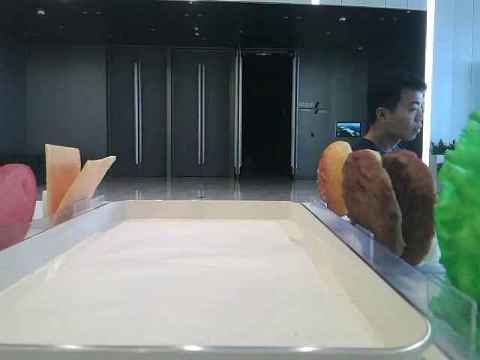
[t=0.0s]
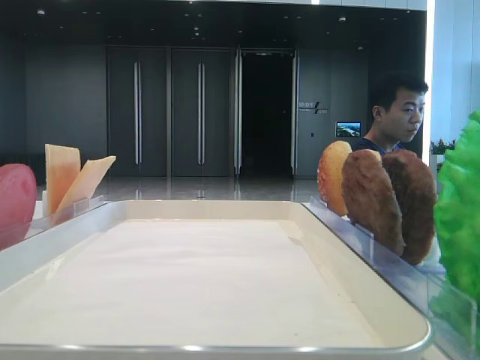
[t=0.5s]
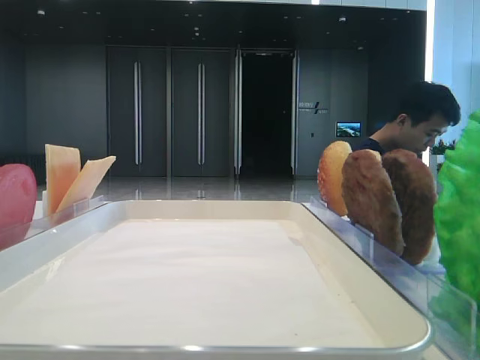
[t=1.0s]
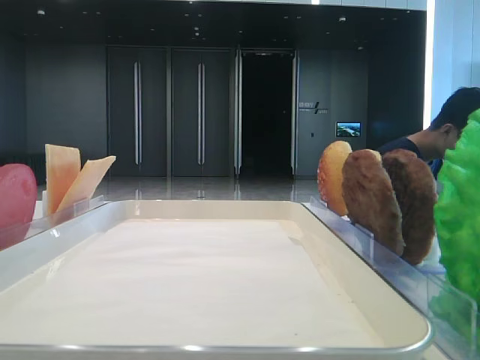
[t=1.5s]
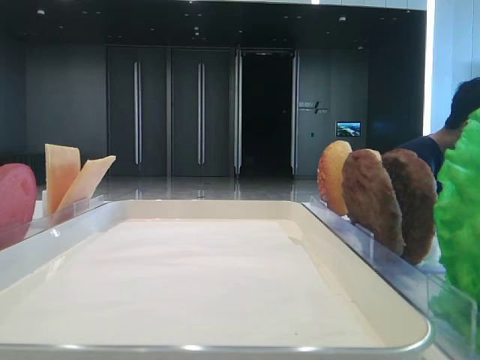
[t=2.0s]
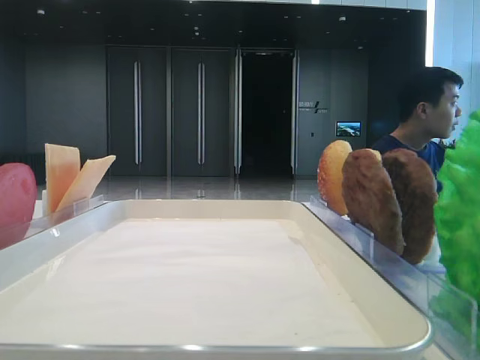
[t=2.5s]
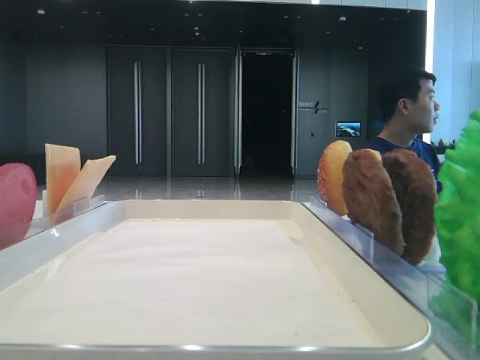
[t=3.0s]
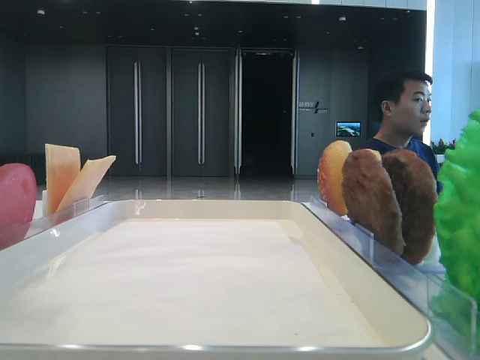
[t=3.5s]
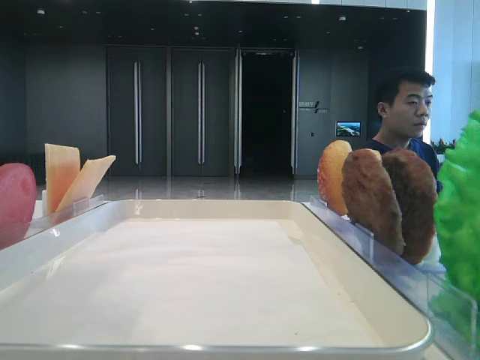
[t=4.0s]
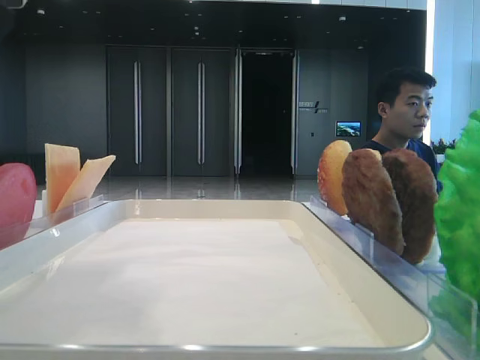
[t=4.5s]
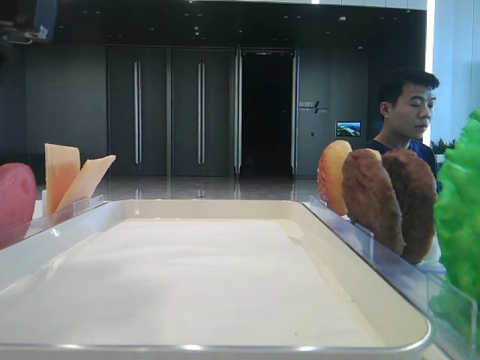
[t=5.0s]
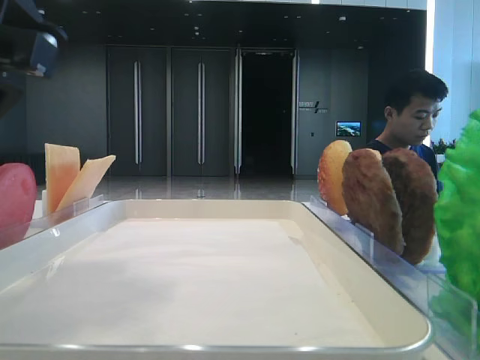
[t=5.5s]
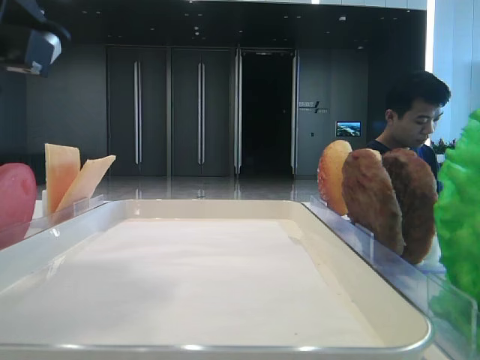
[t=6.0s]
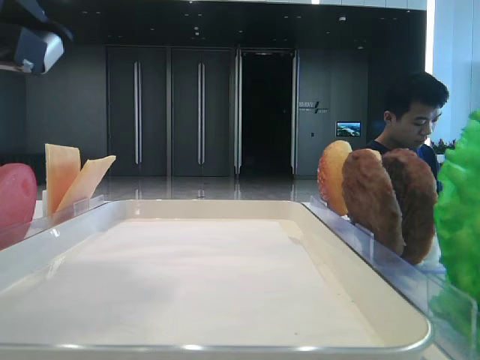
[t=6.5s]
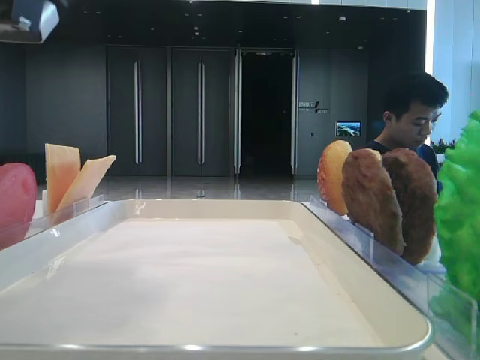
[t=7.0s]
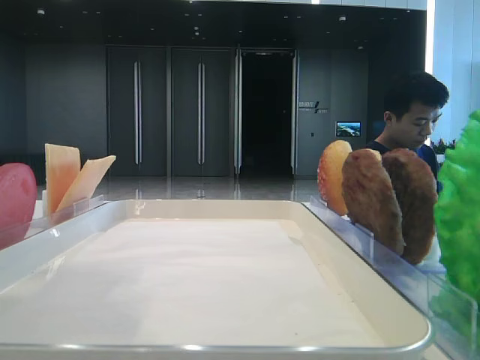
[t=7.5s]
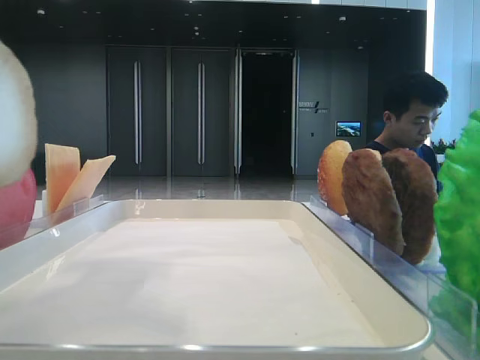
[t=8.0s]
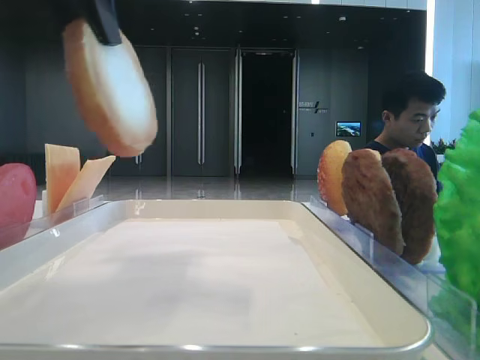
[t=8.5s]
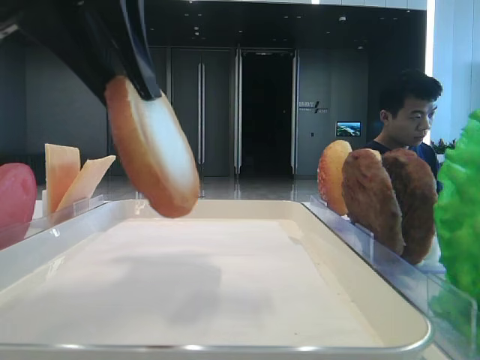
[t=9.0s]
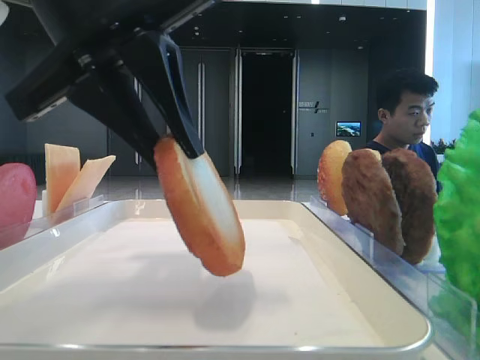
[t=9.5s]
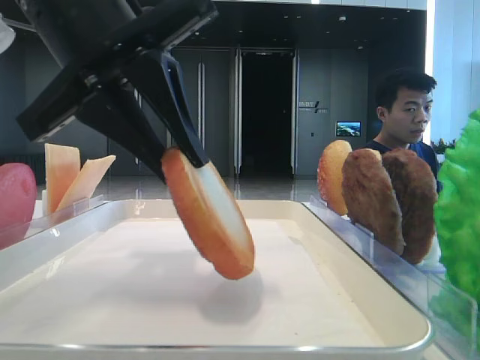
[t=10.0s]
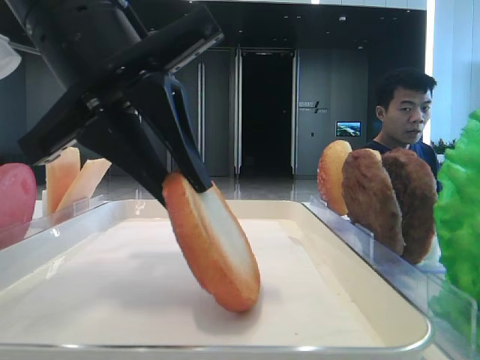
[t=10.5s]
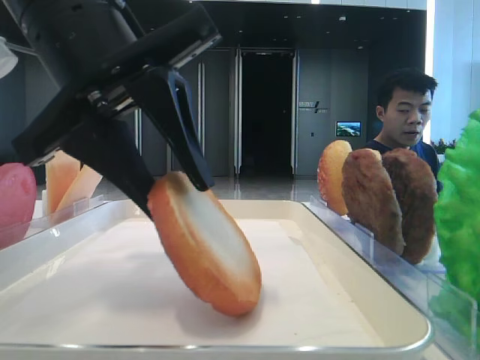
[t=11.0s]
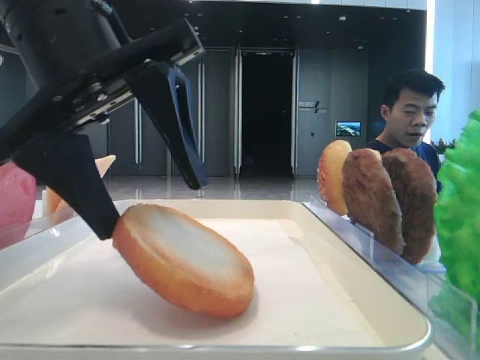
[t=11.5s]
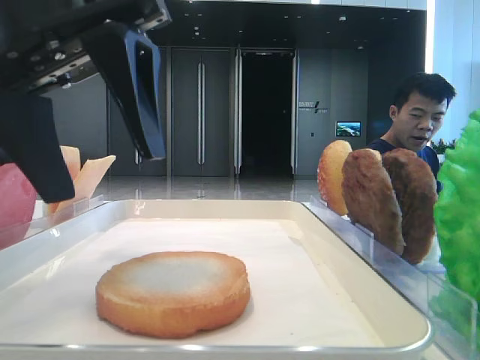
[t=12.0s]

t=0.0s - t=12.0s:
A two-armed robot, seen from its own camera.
Step, t=0.0s - t=6.5s: Pick up the bottom bread with the left hand.
Step, t=7.0s - t=11.5s: Place the bread on the tray with the left hand.
t=2.0s - t=4.0s: The left gripper travels to the right and downward by roughly 15 cm.
t=4.0s - t=6.0s: The left gripper travels downward by roughly 5 cm, and closes up.
t=6.0s - t=8.0s: The left gripper moves upward, about 5 cm.
t=8.0s - t=10.0s: The left gripper travels downward by roughly 10 cm.
t=10.0s - t=12.0s: The left gripper opens up.

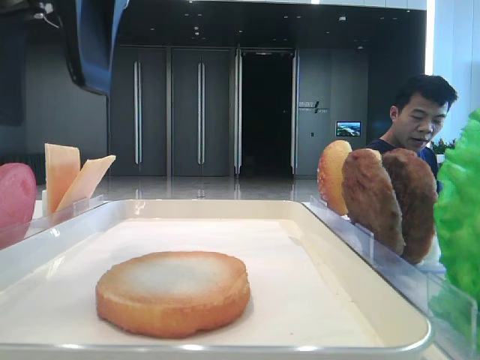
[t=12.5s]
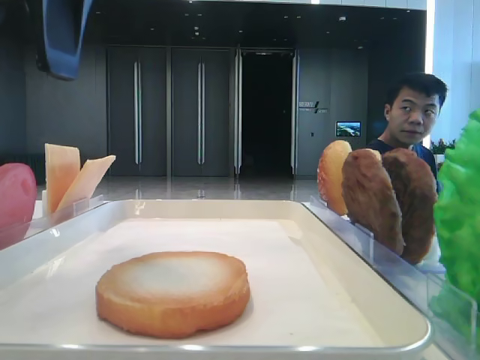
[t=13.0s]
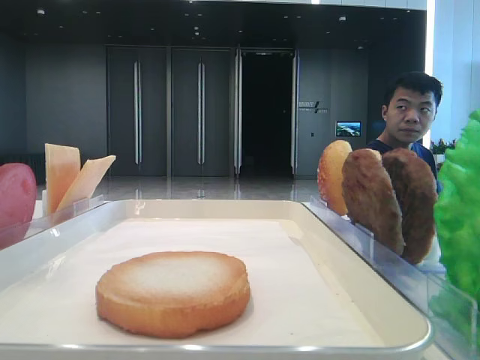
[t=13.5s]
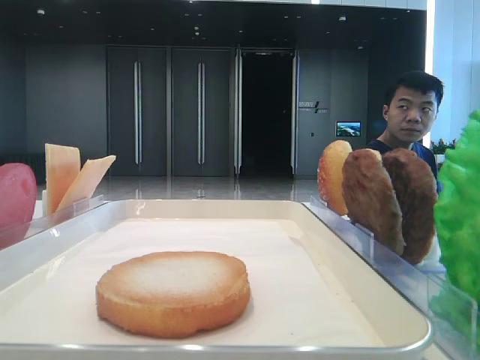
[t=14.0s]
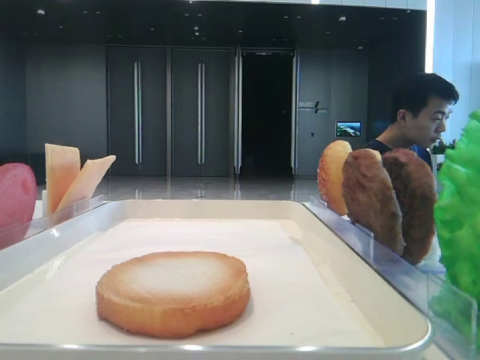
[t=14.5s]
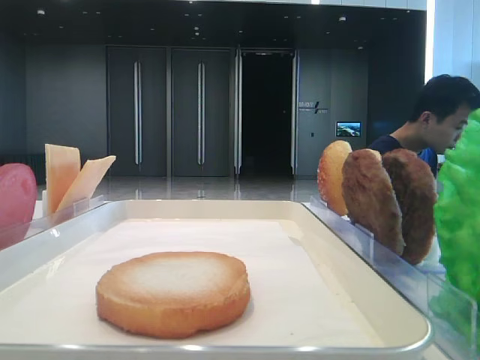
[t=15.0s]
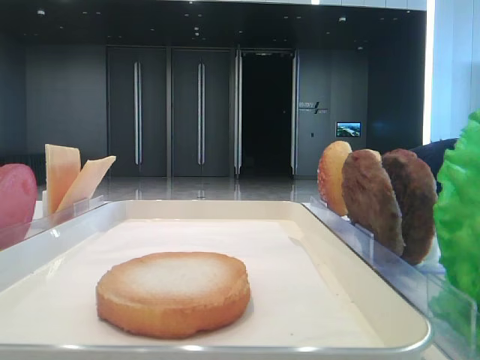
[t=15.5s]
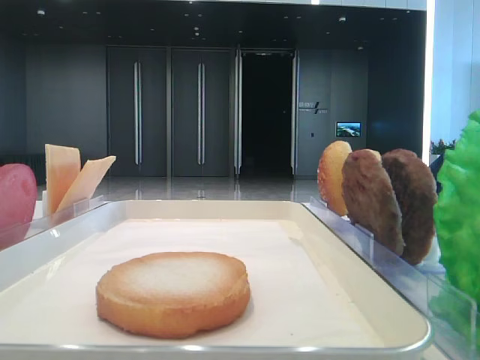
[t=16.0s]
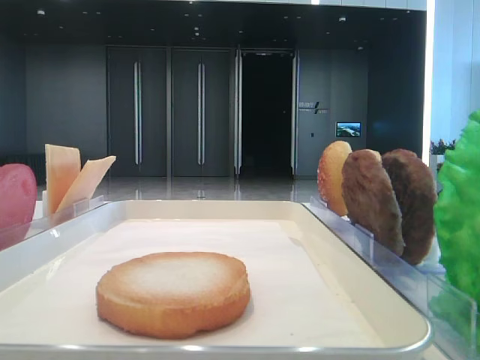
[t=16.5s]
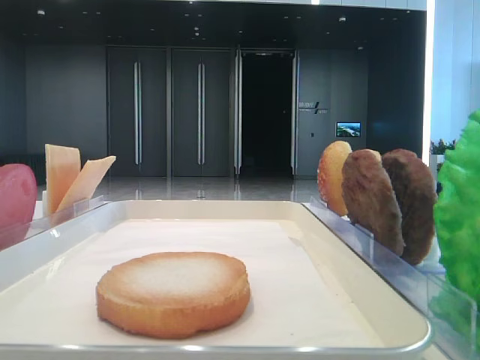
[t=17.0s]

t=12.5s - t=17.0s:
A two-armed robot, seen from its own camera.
t=12.5s - t=14.5s: The left gripper heads to the left and upward, covering roughly 20 cm.

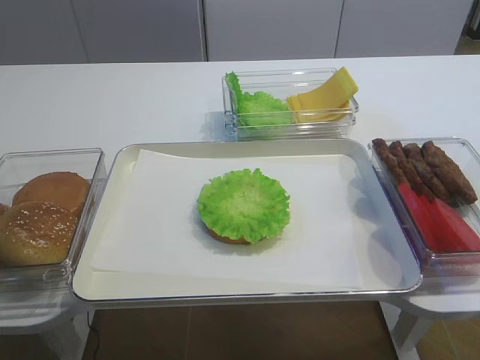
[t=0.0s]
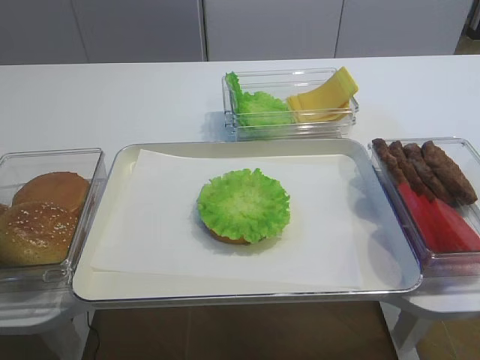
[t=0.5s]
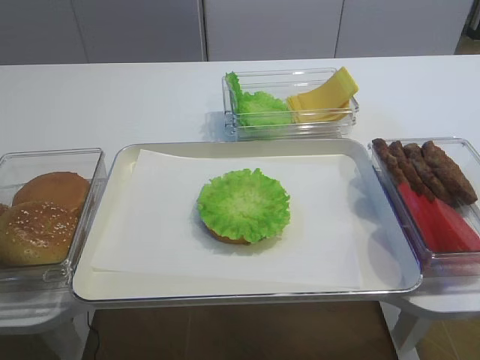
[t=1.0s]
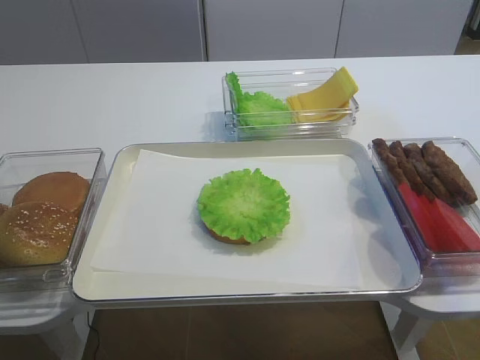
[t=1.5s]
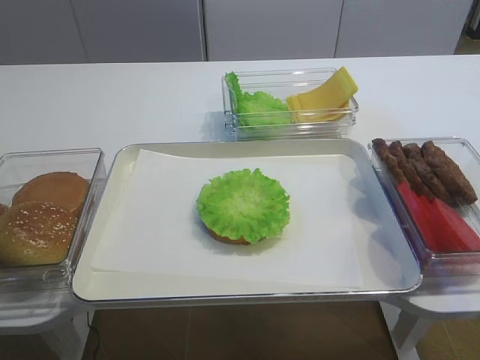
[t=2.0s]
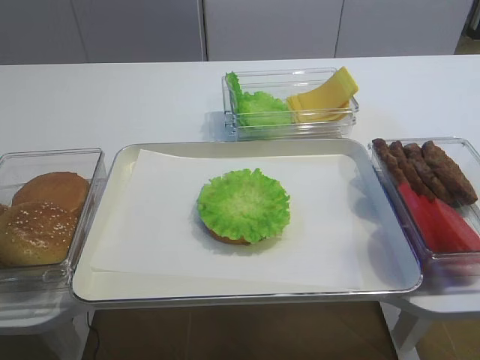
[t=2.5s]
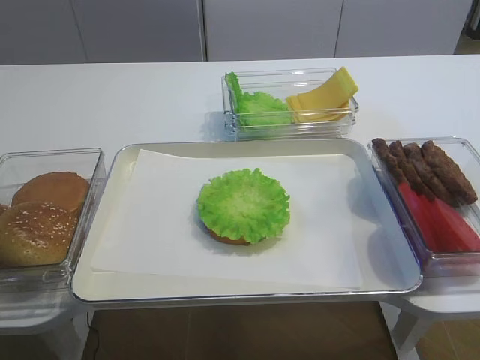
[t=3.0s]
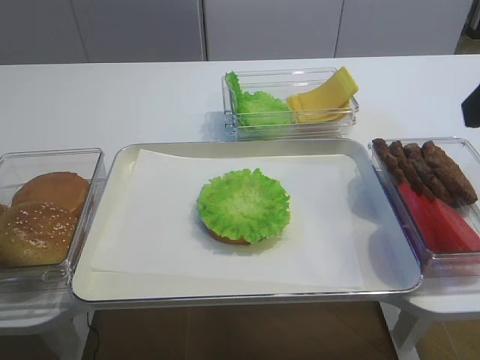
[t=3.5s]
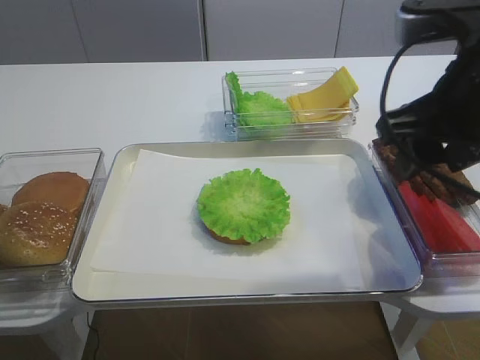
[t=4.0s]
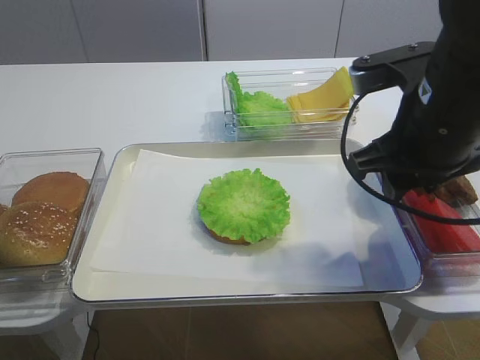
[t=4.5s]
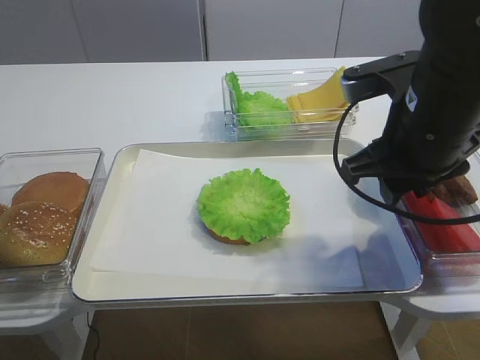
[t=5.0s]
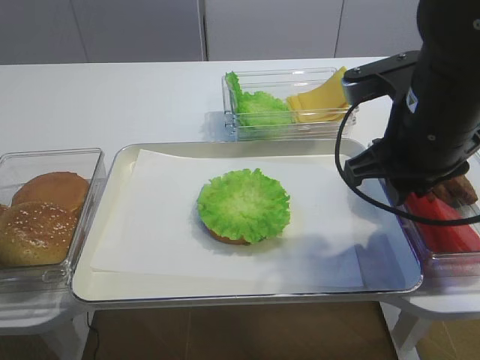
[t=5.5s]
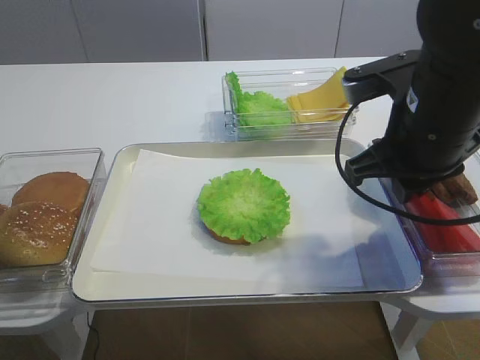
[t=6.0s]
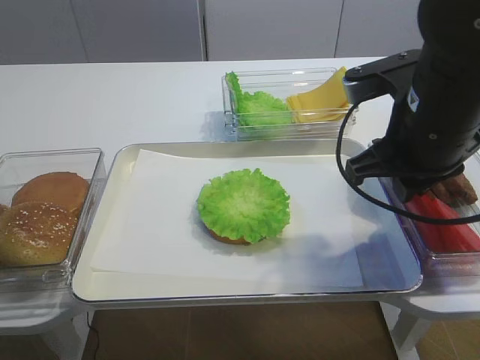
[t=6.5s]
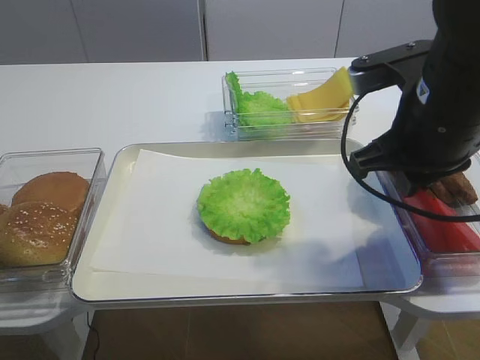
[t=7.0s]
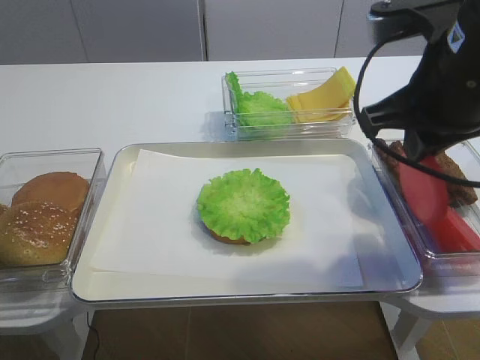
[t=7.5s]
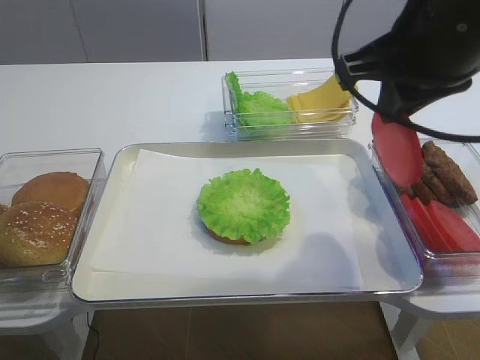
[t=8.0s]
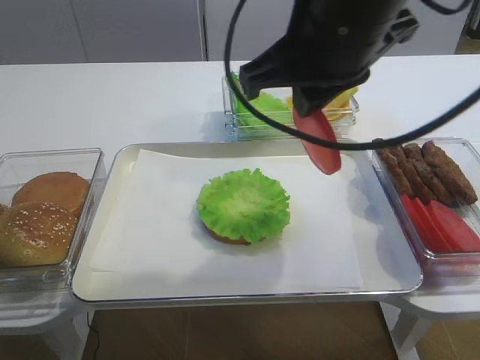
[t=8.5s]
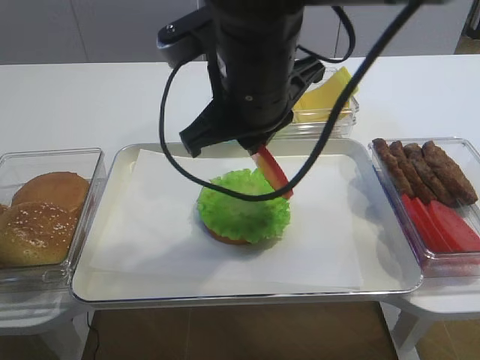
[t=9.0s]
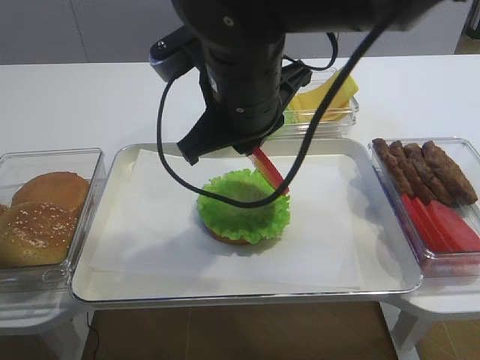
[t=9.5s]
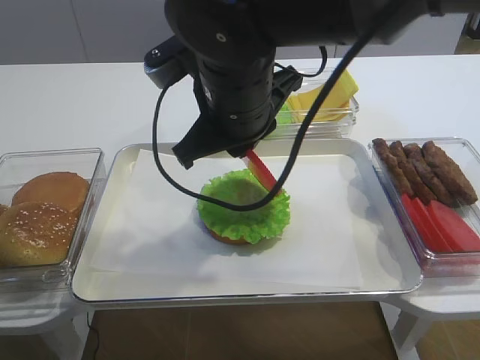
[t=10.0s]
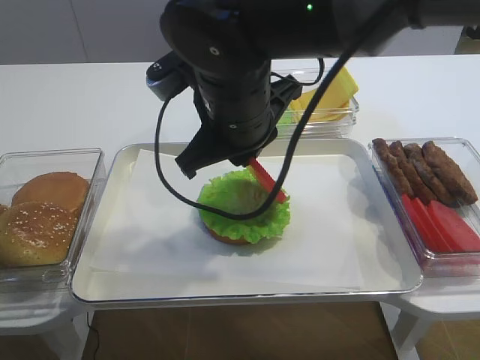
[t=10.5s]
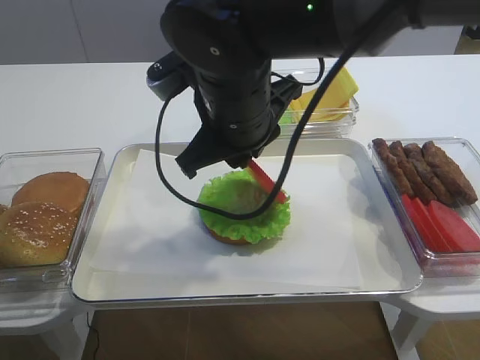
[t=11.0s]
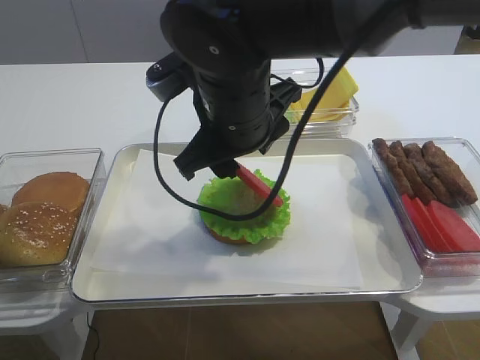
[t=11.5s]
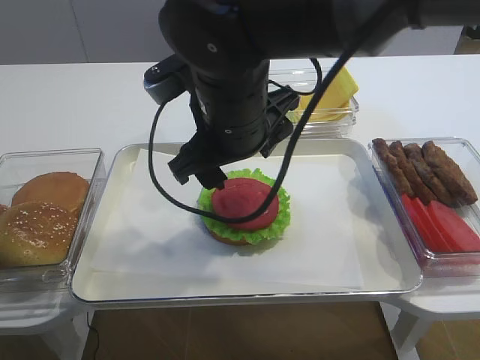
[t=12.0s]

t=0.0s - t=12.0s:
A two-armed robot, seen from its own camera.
Step, t=0.0s - t=7.5s: Pick up the tomato slice with the right gripper.
t=2.0s - t=4.0s: The right gripper moves forward and to the left, roughly 25 cm.
t=4.0s - t=6.0s: The right gripper shifts roughly 5 cm downward, and closes.
t=6.0s - t=8.0s: The right gripper goes about 10 cm upward.
t=8.0s - t=10.0s: The right gripper heads to the left and downward, covering approximately 15 cm.
t=10.0s - t=12.0s: The right gripper opens up.
